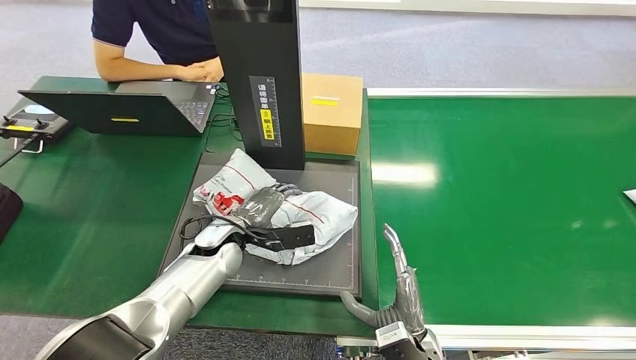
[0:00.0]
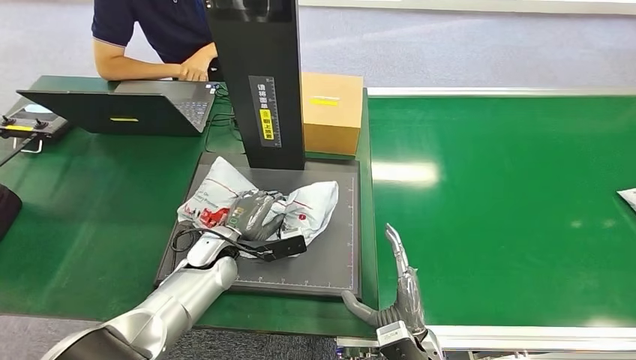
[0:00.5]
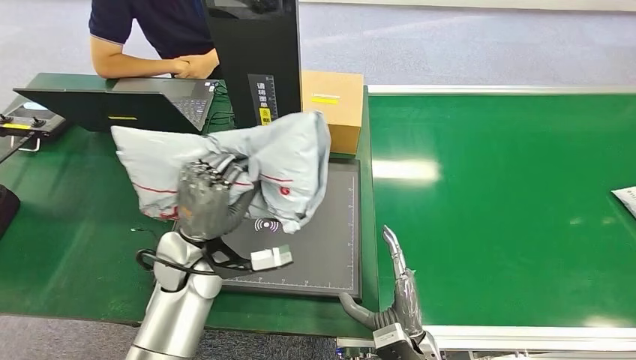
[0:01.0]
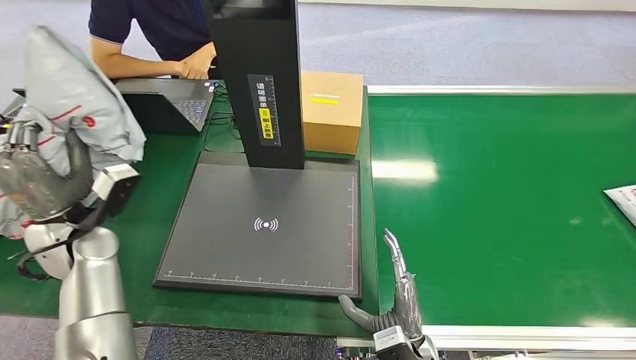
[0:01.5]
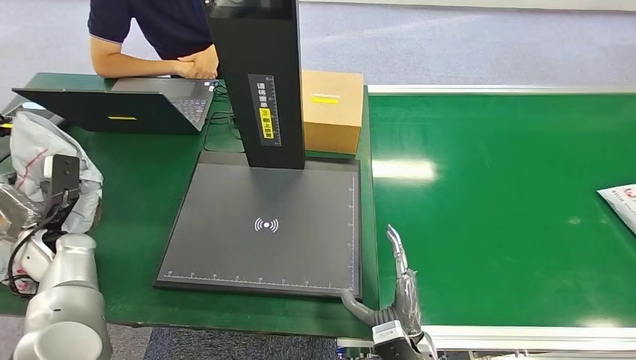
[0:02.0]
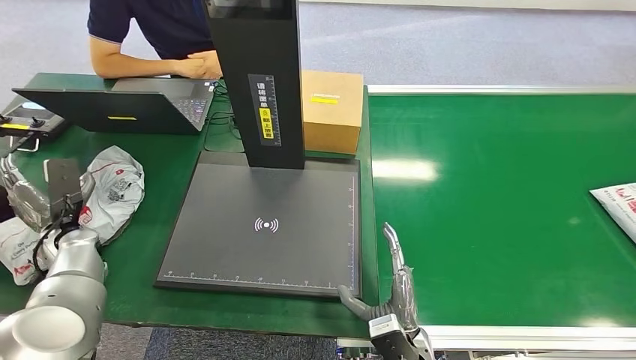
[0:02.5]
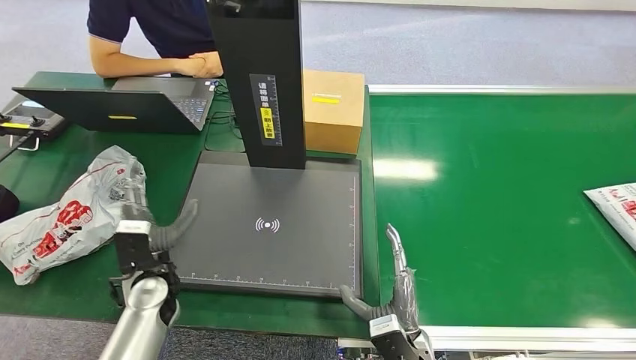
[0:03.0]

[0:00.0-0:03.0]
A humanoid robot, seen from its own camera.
Task of the whole recording: Weigh the package on the weighing device and place it in the left basket.
Step, 0:01.5 to 0:03.0: Place the package into the parcel locker.

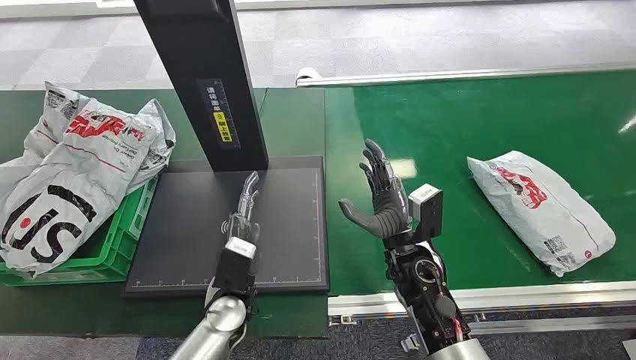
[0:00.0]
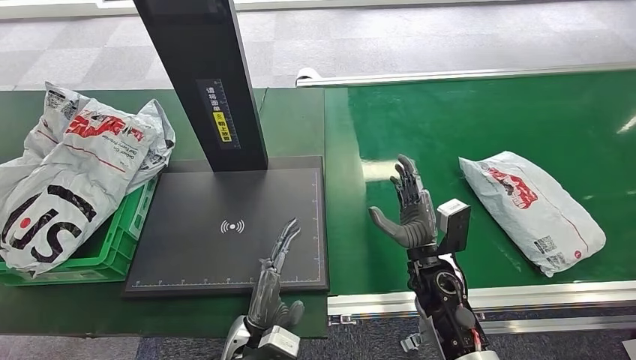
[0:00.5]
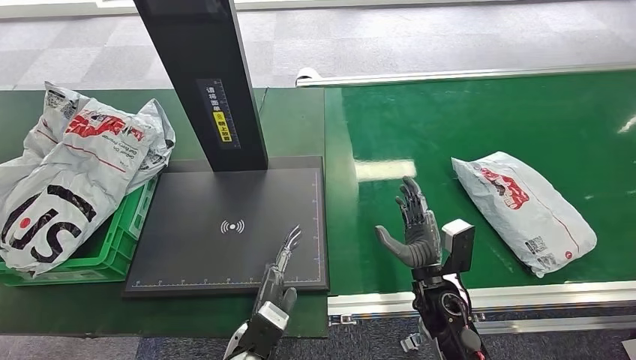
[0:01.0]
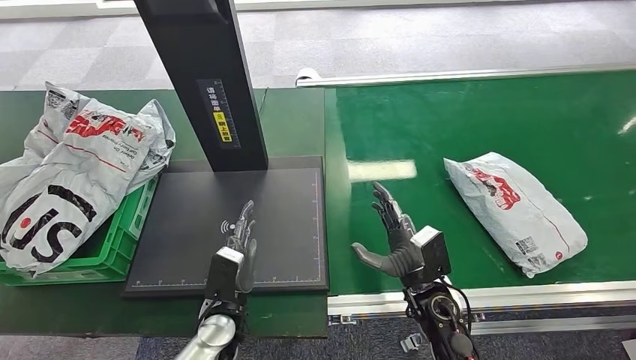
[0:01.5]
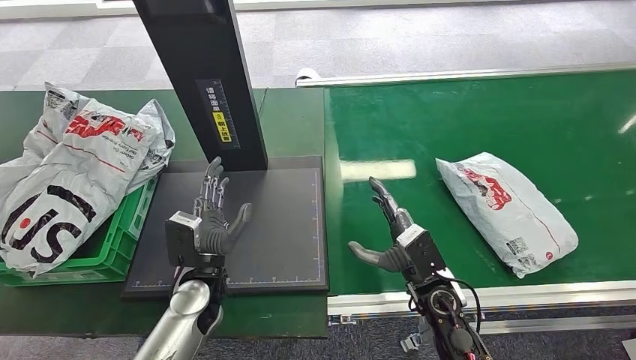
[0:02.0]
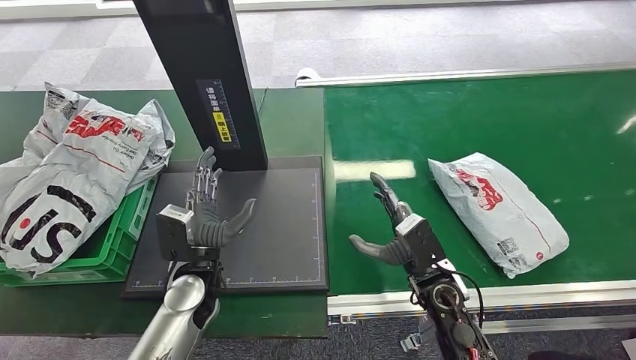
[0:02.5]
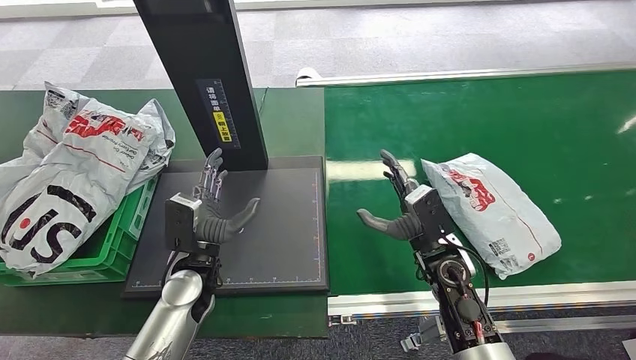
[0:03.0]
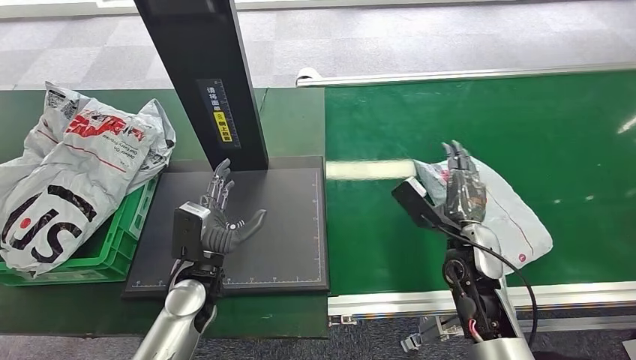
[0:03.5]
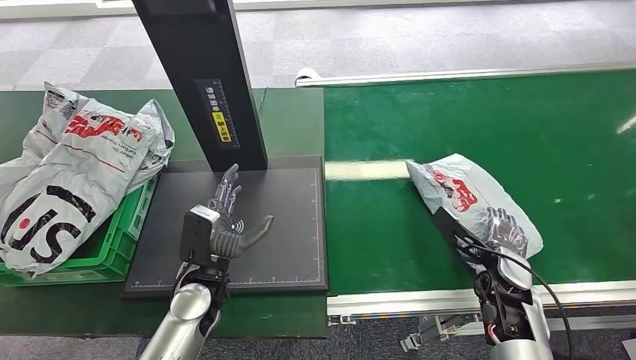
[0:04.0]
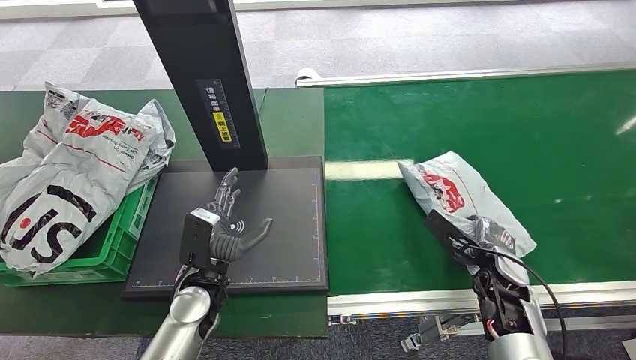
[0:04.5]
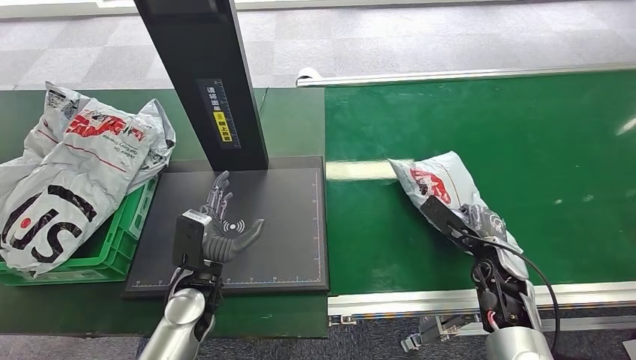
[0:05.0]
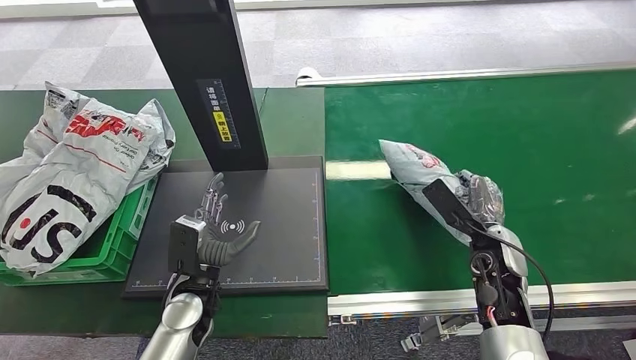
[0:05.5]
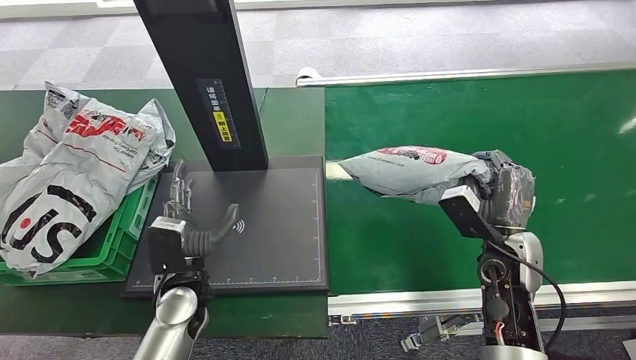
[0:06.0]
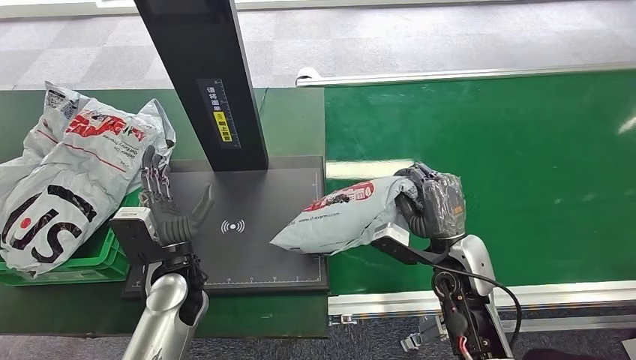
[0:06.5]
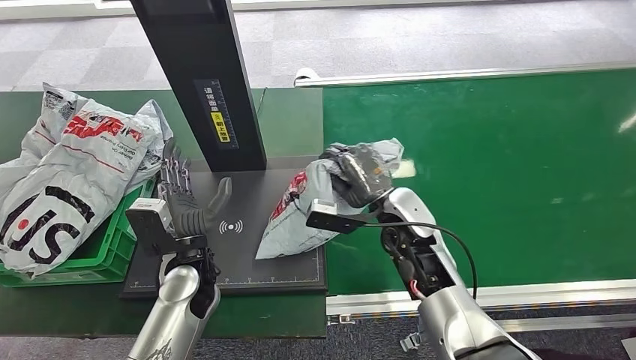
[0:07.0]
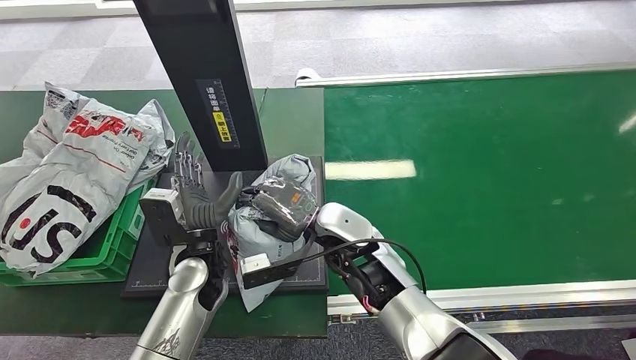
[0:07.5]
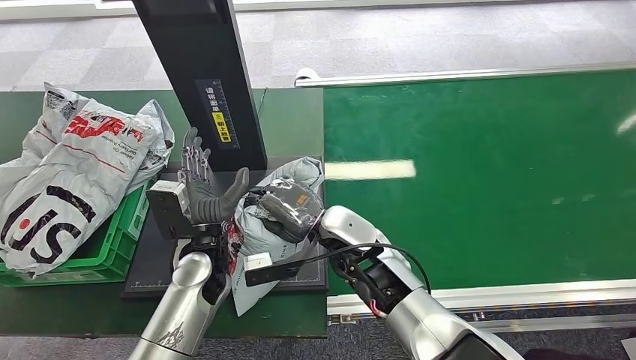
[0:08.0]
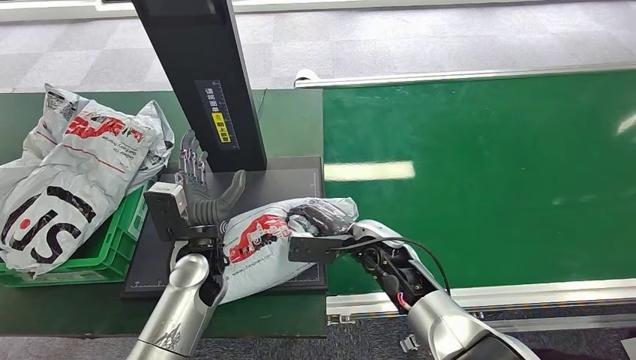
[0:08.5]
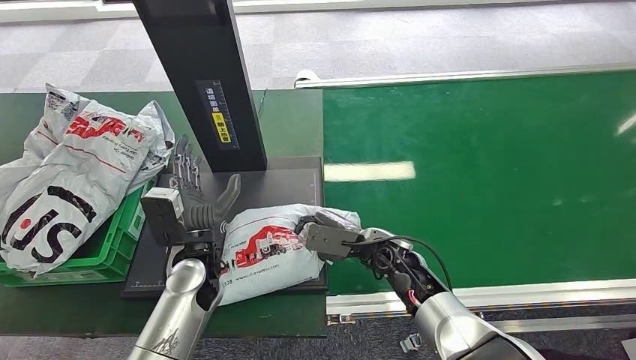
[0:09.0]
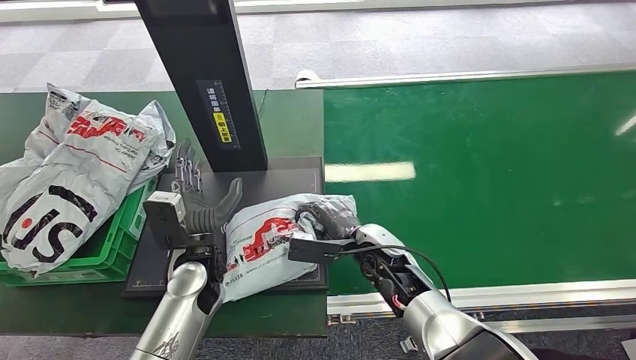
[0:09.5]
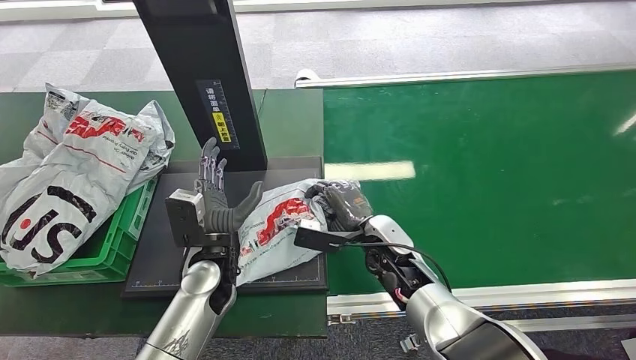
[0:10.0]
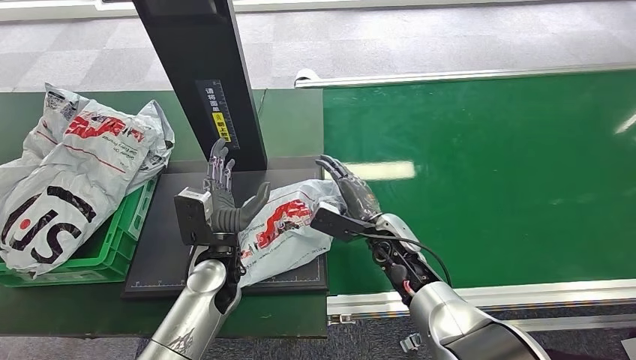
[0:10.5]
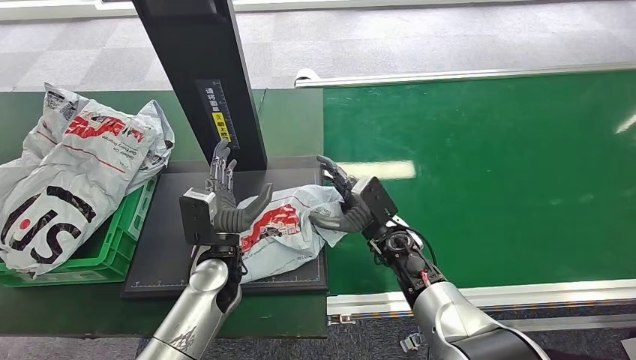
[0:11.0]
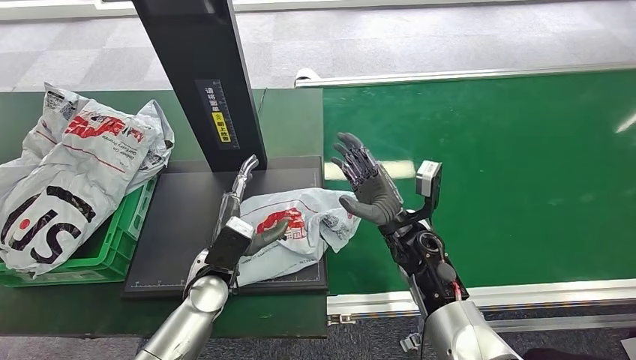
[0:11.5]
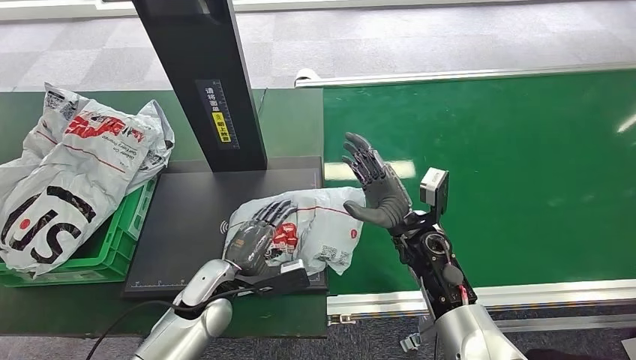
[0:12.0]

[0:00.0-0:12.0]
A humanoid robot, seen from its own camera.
Task of the whole recording: Weigh the package on the weighing device and place it in the left basket.
Step, 0:00.0 to 0:06.0: Pick up the package from the conveyor belt.
Step, 0:07.0 to 0:11.0: Place the package onto the inbound machine.
0:02.0 to 0:04.0: The right hand shifts roughly 15 cm to the right.
0:04.0 to 0:06.0: The right hand moves upward, about 5 cm.
0:08.0 to 0:10.0: The right hand is displaced to the right and downward by roughly 10 cm.
0:10.0 to 0:12.0: The left hand goes roughly 5 cm downward. Meanwhile the right hand moves roughly 5 cm.

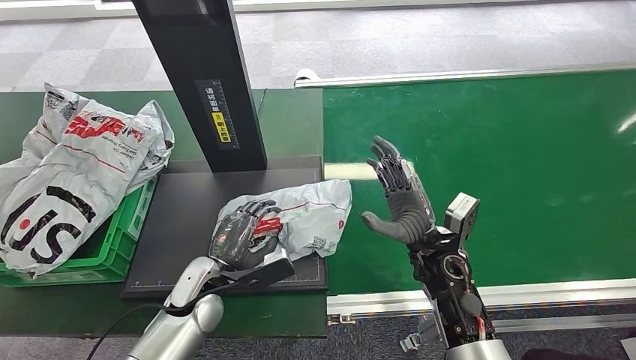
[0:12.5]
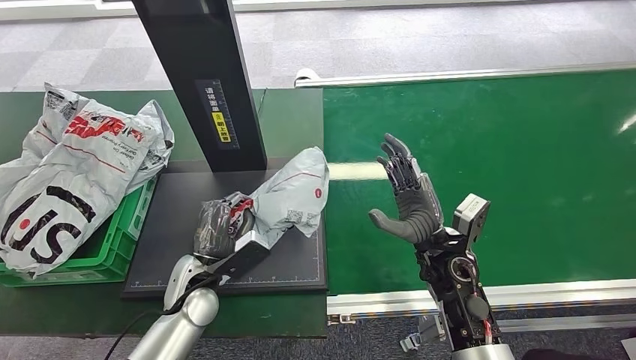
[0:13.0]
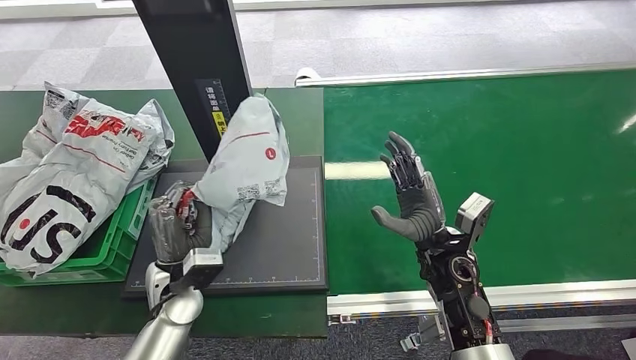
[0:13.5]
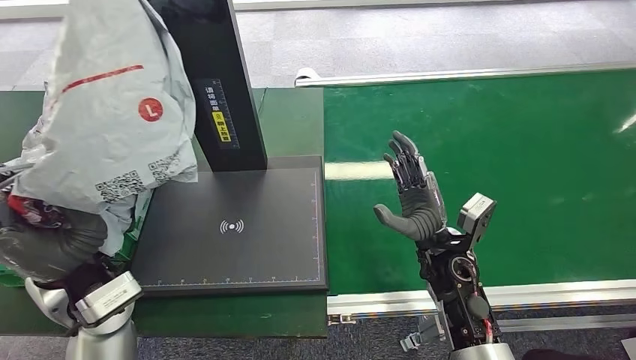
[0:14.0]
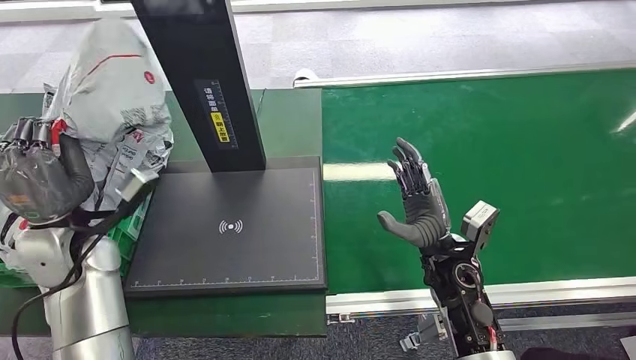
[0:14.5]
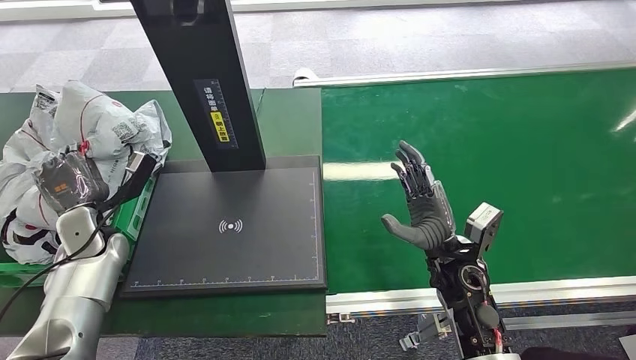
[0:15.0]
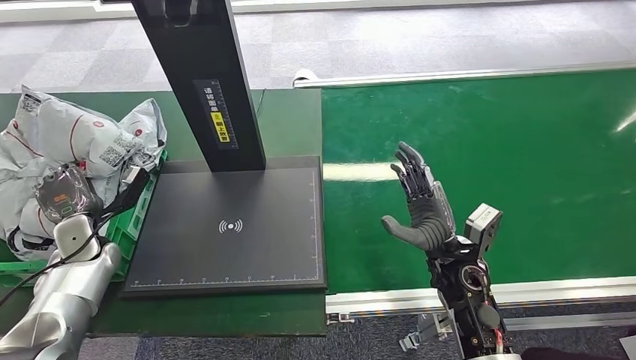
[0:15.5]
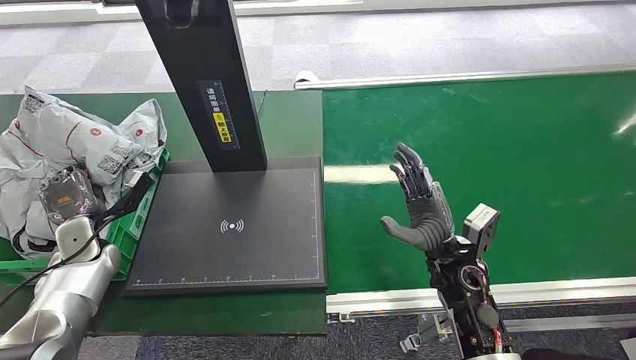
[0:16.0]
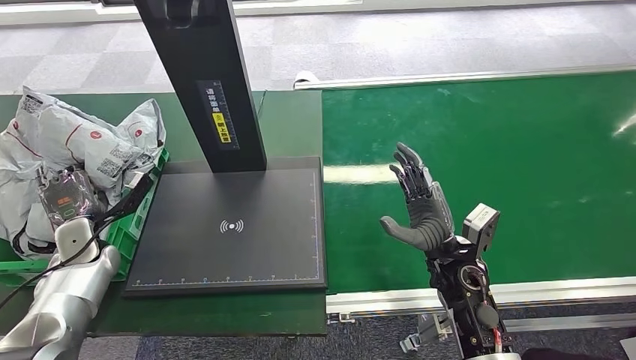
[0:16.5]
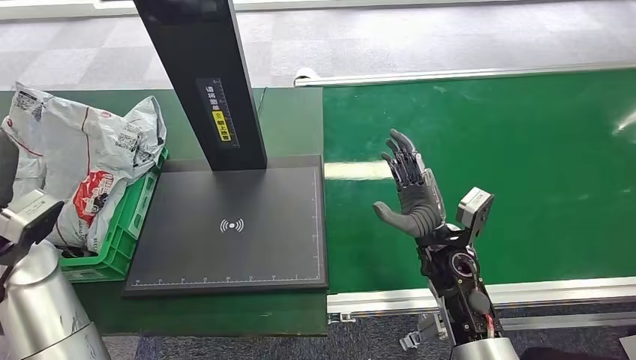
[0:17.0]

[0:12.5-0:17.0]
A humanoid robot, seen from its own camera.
Task of the whole recording: Weigh the package on the weighing device and place it in the left basket.
Step, 0:14.0 to 0:16.5: Place the package into the parcel locker.
